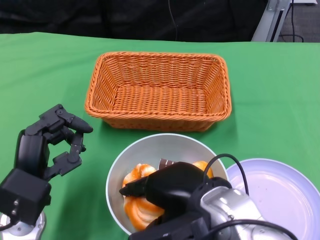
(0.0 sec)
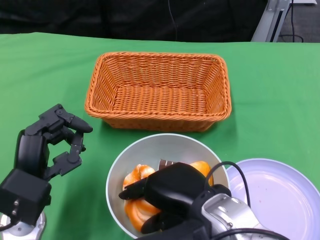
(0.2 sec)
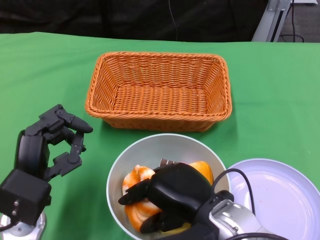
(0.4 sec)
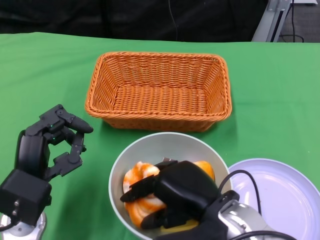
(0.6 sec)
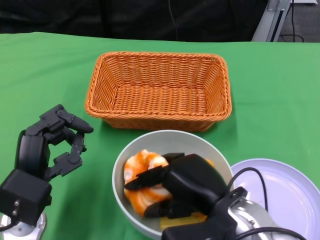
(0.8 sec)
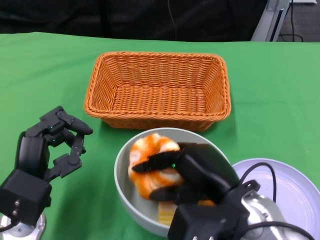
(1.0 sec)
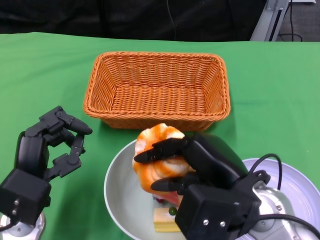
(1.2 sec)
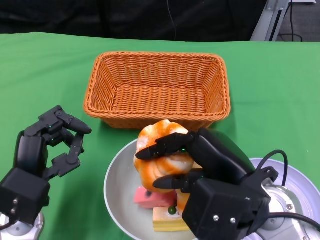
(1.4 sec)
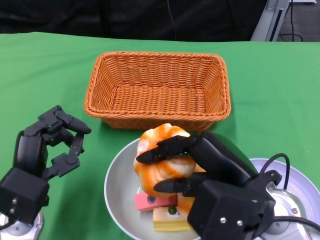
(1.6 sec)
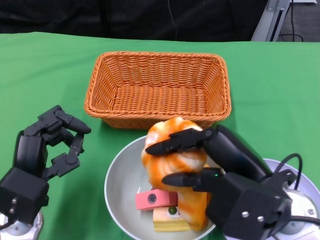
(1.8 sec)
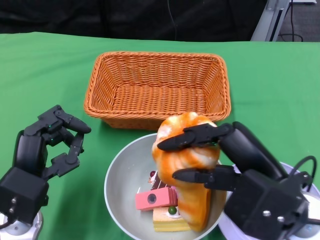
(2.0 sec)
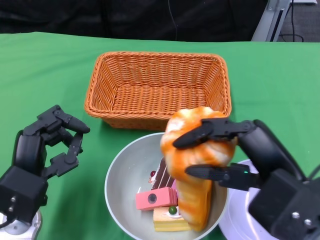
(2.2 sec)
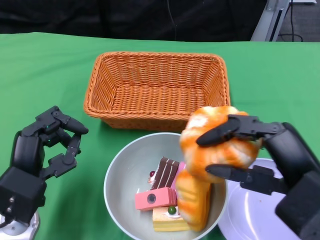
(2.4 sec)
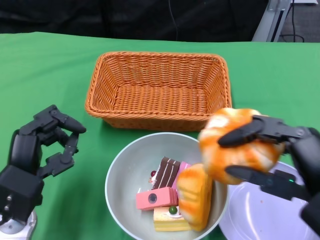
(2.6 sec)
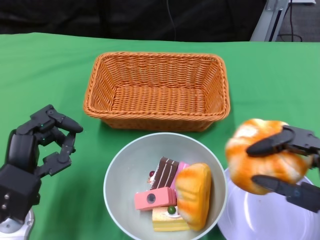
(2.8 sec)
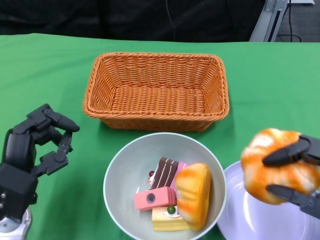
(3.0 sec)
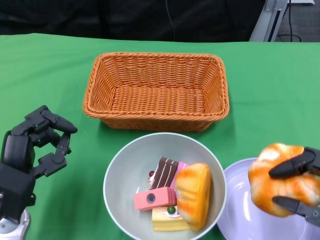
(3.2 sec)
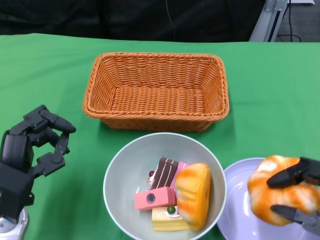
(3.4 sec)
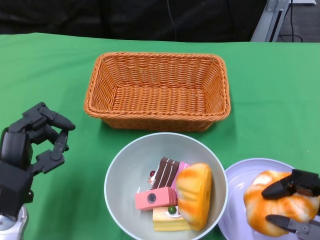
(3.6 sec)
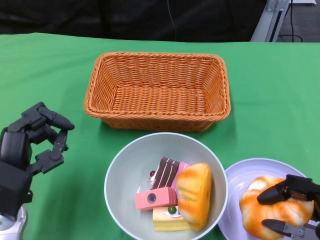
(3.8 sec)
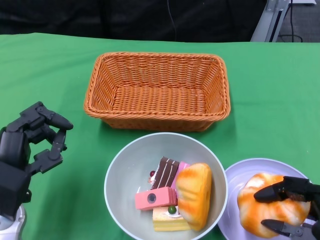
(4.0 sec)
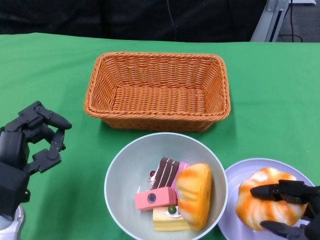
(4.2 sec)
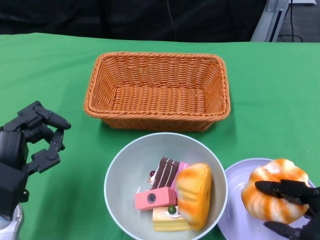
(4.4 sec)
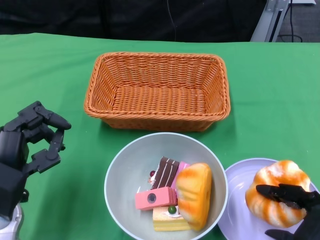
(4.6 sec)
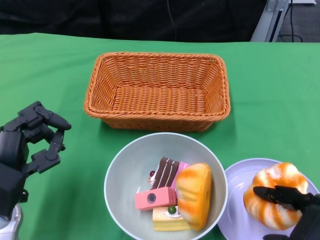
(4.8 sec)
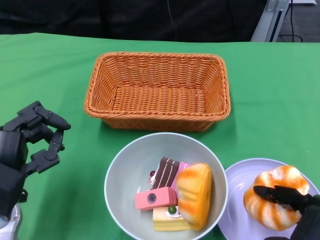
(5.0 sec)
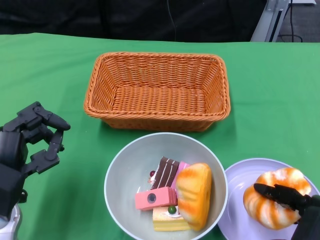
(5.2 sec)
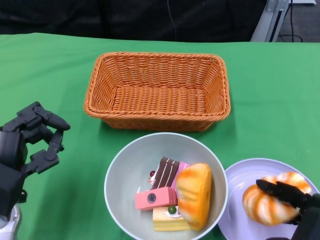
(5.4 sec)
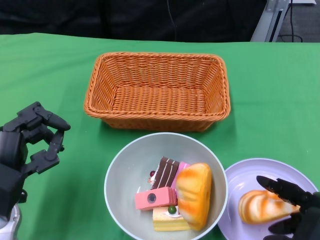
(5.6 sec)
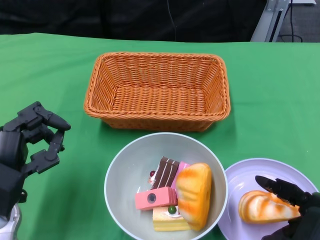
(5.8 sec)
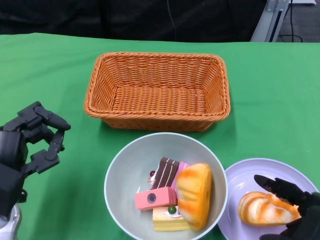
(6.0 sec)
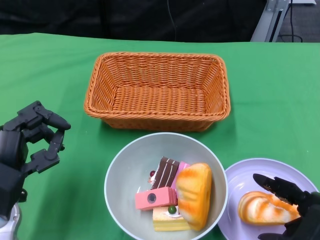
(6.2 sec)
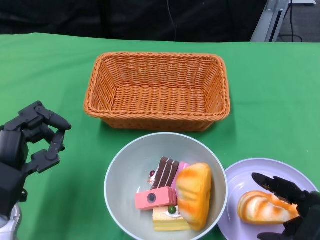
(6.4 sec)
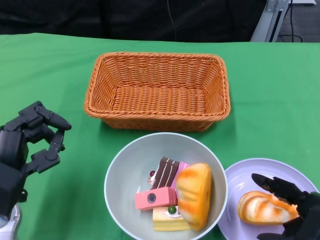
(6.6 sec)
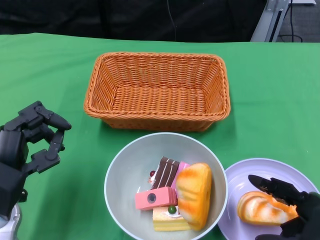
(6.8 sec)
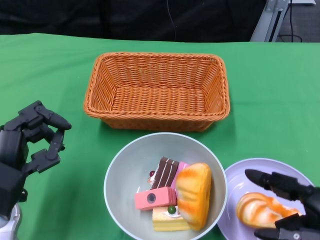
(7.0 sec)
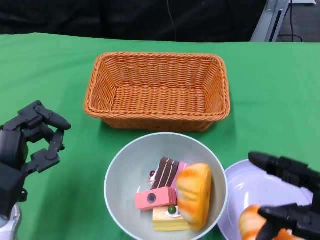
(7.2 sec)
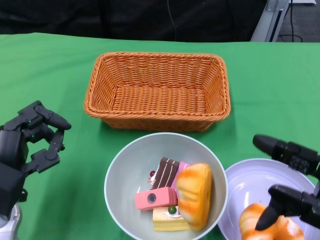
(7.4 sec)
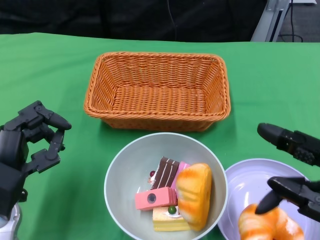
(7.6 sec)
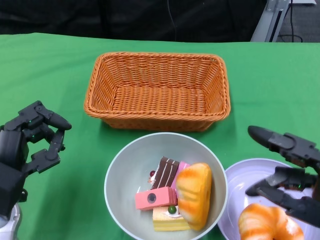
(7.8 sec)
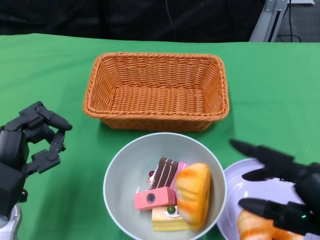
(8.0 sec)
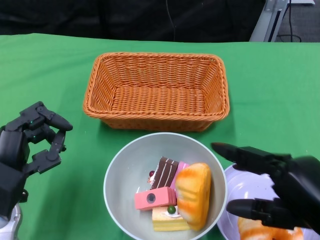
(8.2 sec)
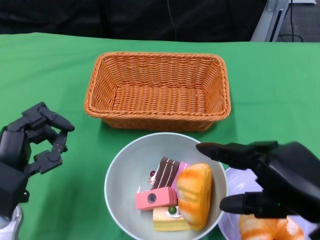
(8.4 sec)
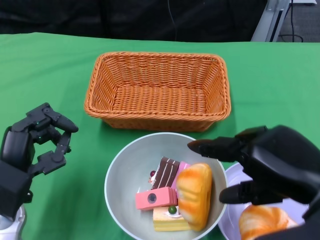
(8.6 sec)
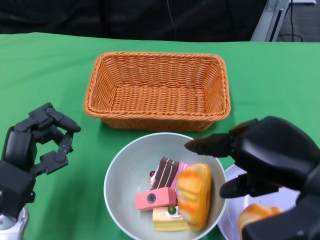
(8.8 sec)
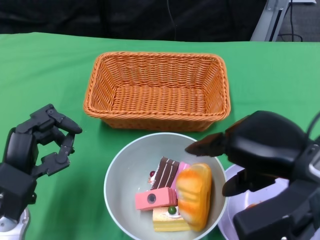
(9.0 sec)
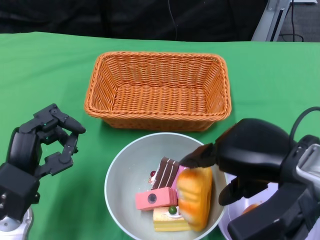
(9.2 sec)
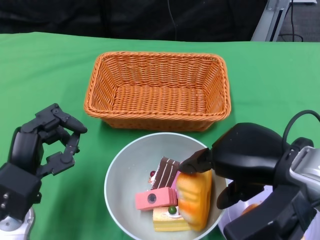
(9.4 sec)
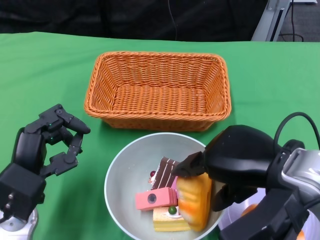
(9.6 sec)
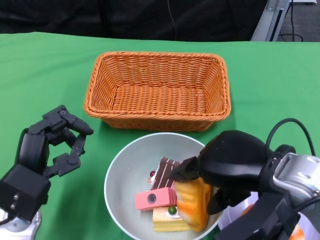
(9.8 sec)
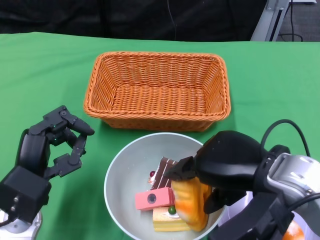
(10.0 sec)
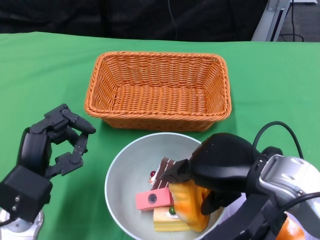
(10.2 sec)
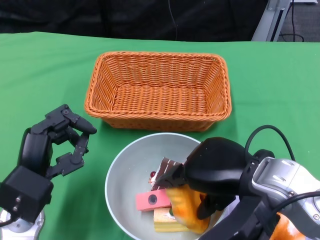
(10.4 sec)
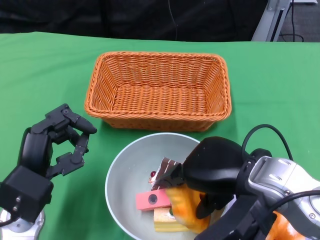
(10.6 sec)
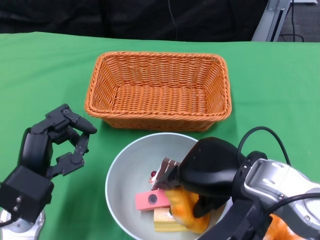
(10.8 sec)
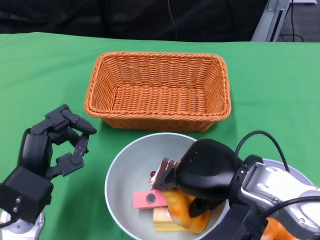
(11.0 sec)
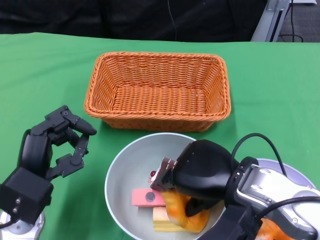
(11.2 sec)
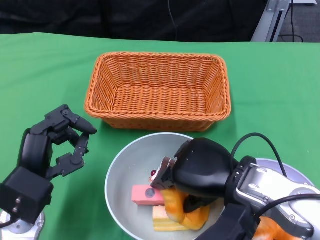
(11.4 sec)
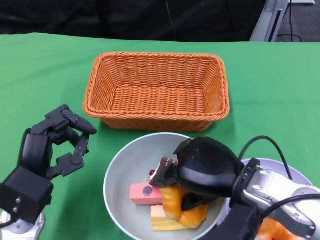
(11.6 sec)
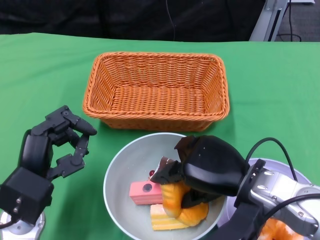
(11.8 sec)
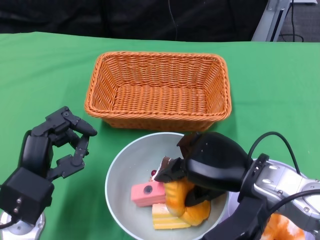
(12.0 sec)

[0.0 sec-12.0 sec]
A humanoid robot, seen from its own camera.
Step, 0.0 sec to 7.4 sec: Pick up the bread with the right gripper and place it on the plate.
0.0 sec to 1.6 sec: The right hand shifts approximately 5 cm to the right.
1.6 sec to 3.0 sec: The right hand goes roughly 15 cm to the right and backward.
4.4 sec to 6.0 sec: The hands move only a little.
7.6 sec to 9.0 sec: The right hand travels to the left and forward by about 10 cm.
9.0 sec to 10.4 sec: The right hand shifts some 5 cm to the left.
10.4 sec to 12.0 sec: The hands make only small movements.

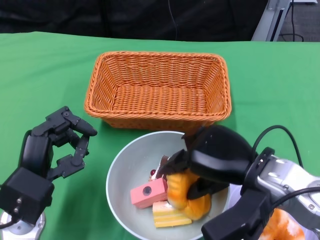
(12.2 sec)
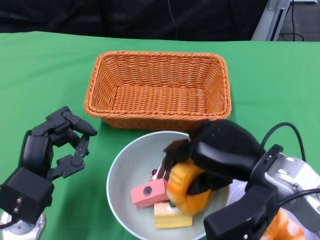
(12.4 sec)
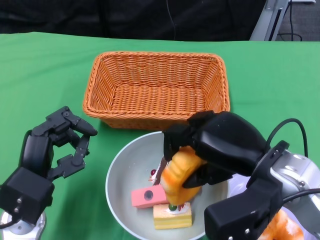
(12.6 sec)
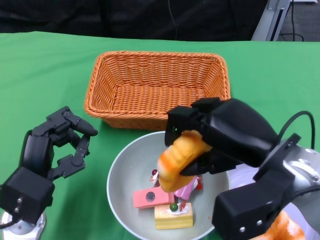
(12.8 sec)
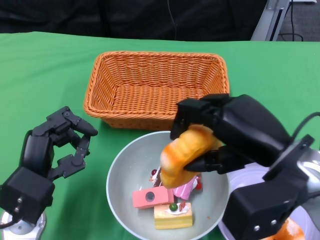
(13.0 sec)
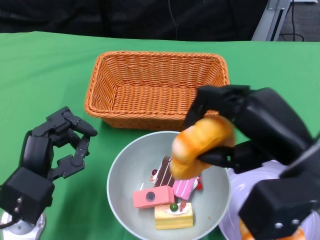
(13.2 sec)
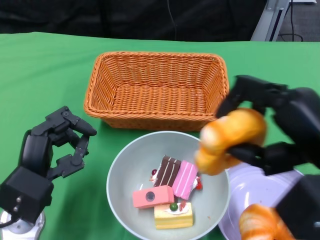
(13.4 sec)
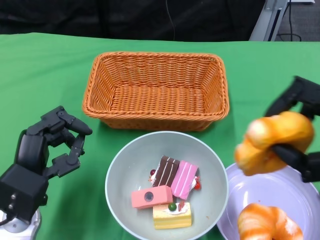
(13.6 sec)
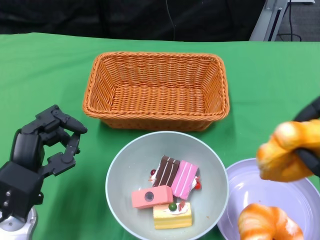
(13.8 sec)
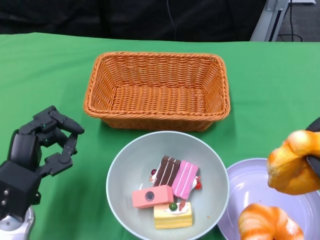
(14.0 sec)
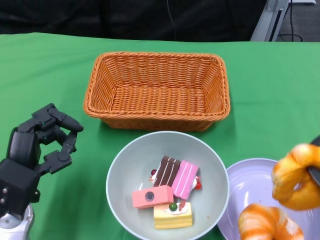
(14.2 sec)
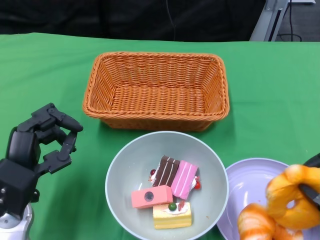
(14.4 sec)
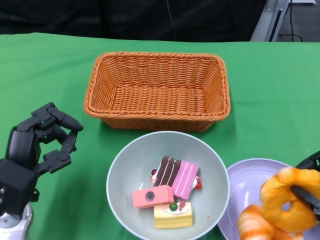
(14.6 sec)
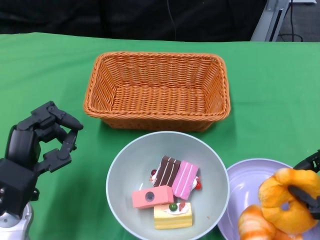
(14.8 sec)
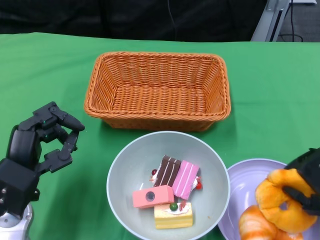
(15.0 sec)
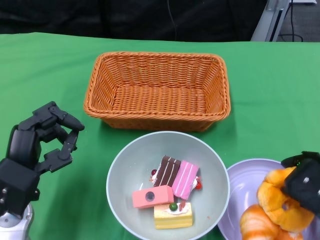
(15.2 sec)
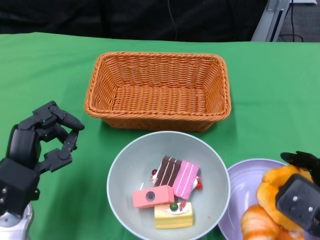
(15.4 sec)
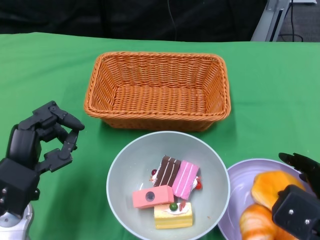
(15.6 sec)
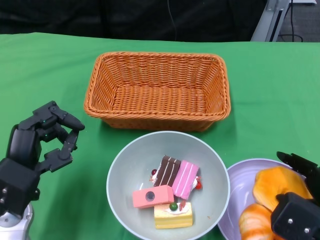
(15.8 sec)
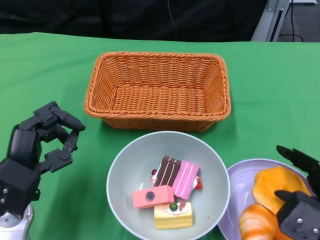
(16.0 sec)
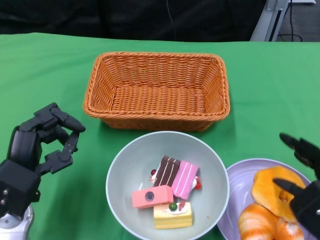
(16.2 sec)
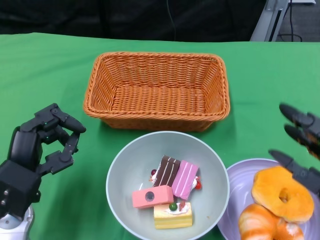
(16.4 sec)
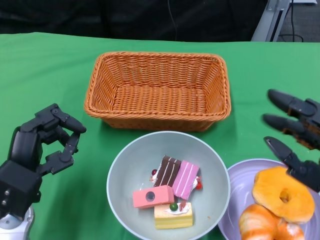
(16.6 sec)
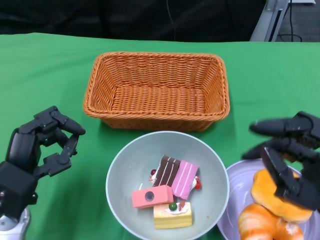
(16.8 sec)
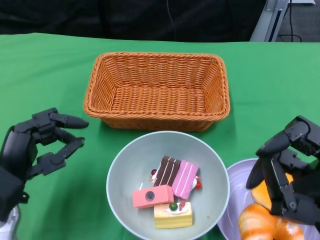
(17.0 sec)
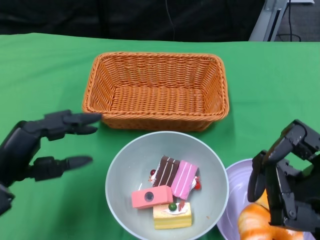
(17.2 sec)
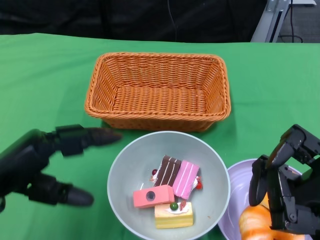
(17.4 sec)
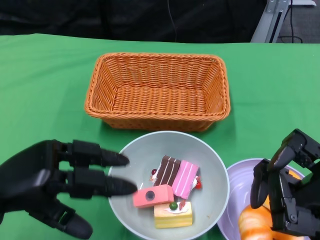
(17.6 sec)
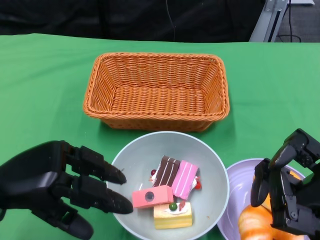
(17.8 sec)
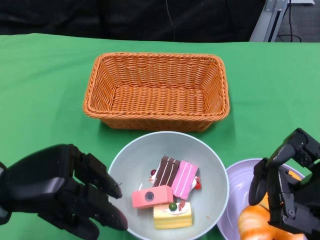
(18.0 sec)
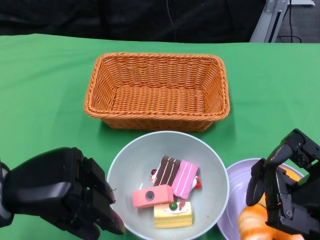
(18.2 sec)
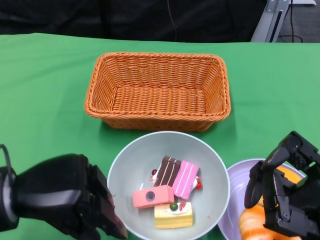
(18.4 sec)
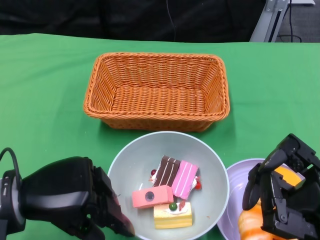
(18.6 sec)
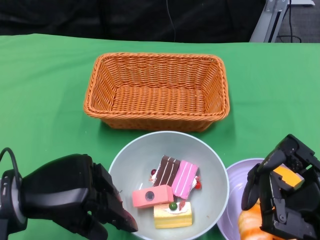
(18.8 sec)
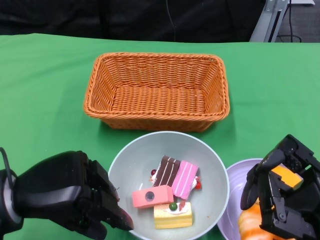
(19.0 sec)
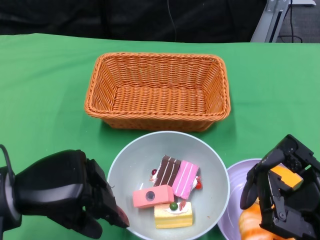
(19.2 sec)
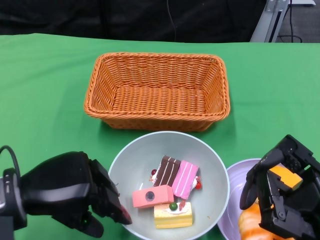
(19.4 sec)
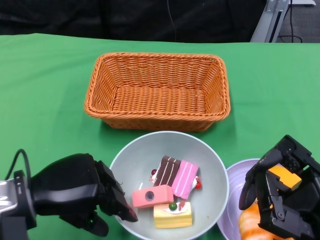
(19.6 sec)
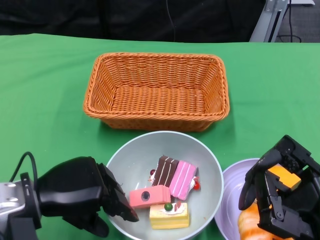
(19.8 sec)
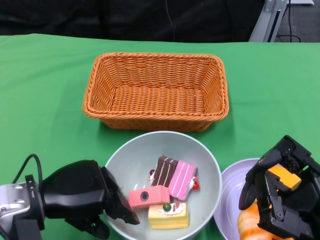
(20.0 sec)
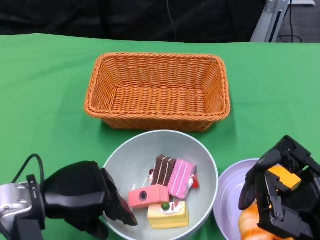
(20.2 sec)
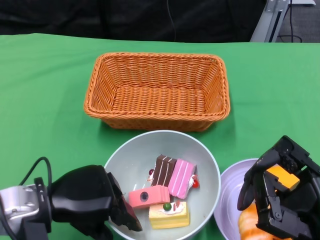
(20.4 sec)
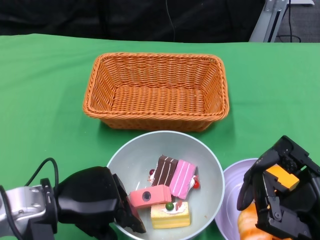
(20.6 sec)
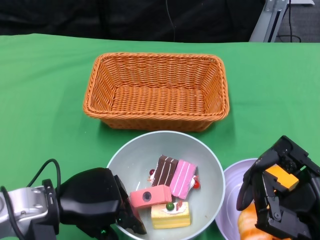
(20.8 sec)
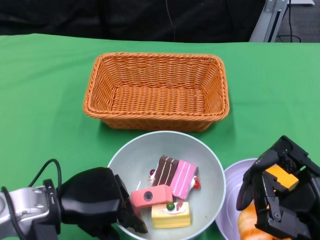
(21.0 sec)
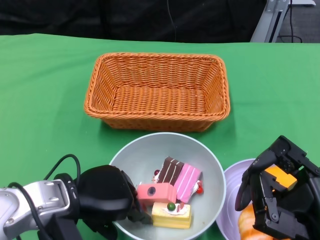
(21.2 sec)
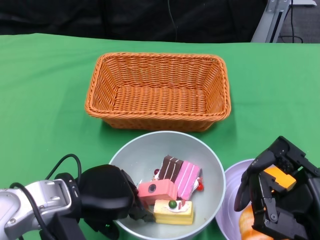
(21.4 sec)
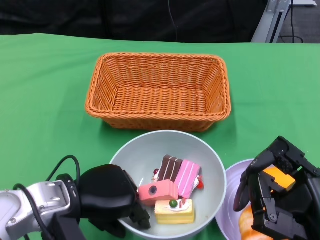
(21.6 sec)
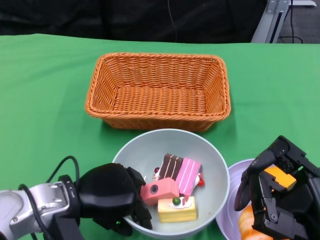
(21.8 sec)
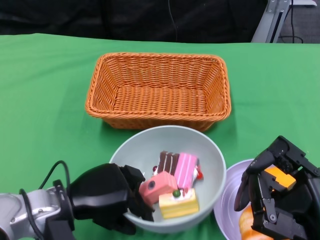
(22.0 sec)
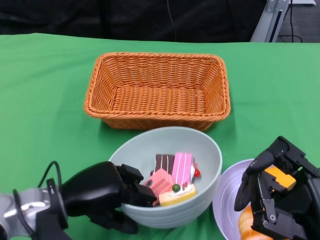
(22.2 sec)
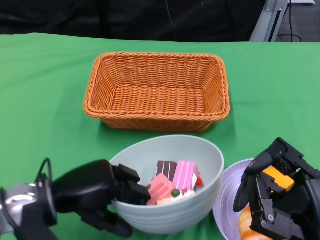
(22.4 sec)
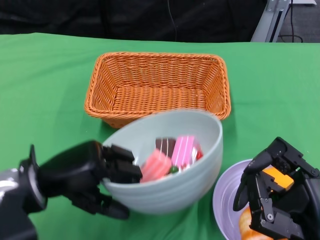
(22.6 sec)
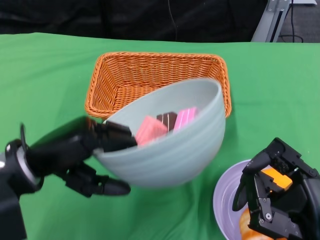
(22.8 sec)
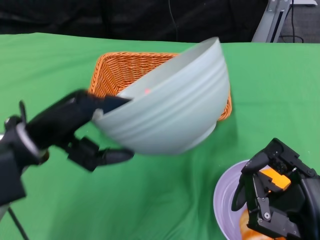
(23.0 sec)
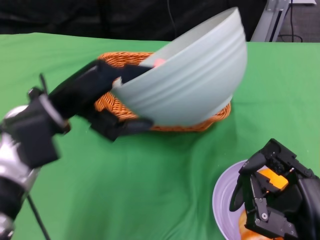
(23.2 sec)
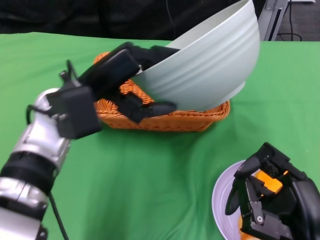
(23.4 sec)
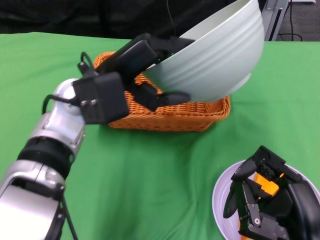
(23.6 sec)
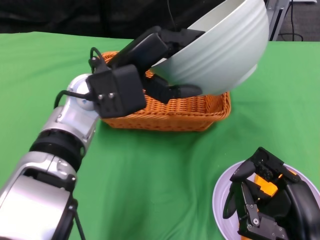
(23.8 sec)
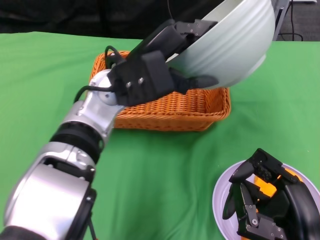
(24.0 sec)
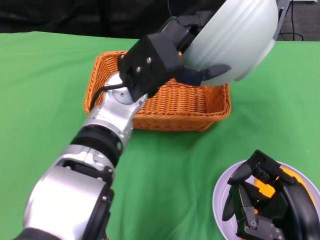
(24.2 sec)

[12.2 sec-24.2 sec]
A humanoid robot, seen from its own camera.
Step, 12.2 sec to 16.4 sec: Pick up the bread with the right gripper and place it on the plate.
Step, 16.6 sec to 21.6 sec: Grasp the bowl with the left gripper.
12.2 sec to 13.8 sec: The right hand heads to the right and backward, covering some 15 cm.
13.8 sec to 15.2 sec: The right hand travels downward by about 5 cm.
15.2 sec to 16.6 sec: The right hand shifts roughly 5 cm upward.
16.6 sec to 18.2 sec: The left hand shifts approximately 5 cm upward.
18.2 sec to 19.8 sec: The hands make only small movements.
22.6 sec to 24.2 sec: The left hand shifts some 20 cm to the right, forward and upward.
